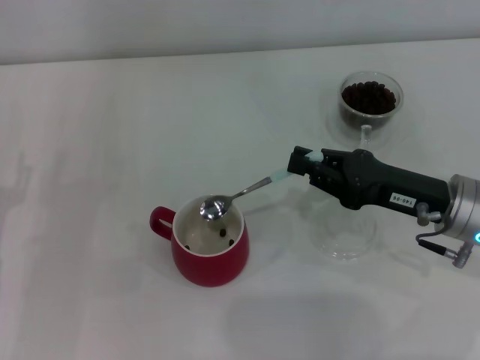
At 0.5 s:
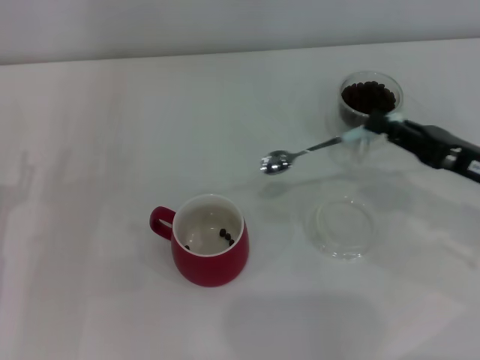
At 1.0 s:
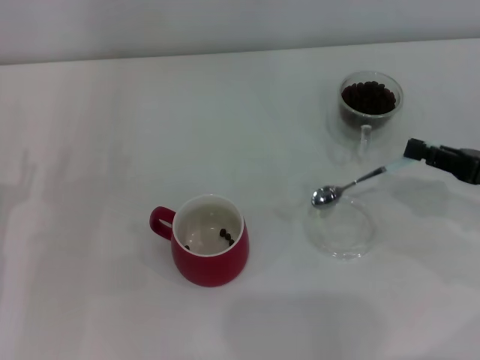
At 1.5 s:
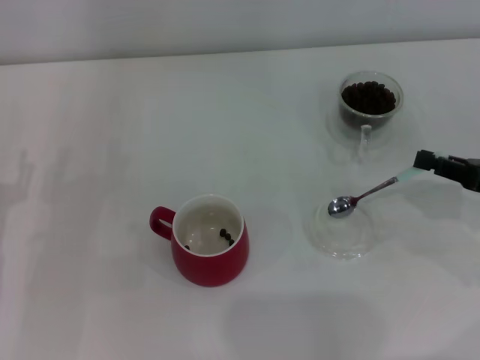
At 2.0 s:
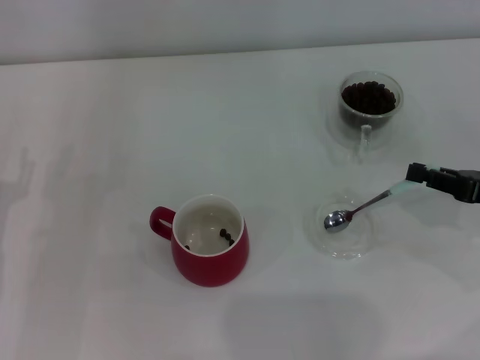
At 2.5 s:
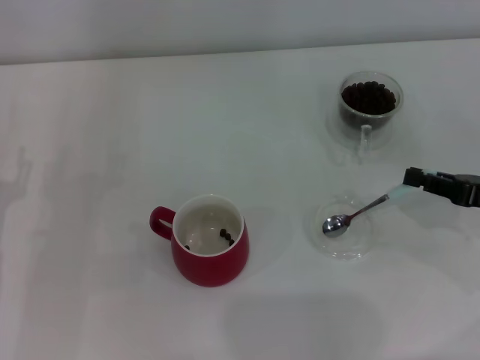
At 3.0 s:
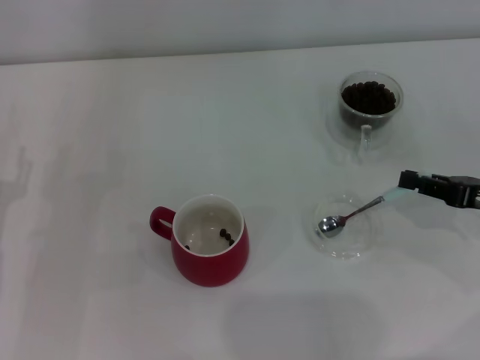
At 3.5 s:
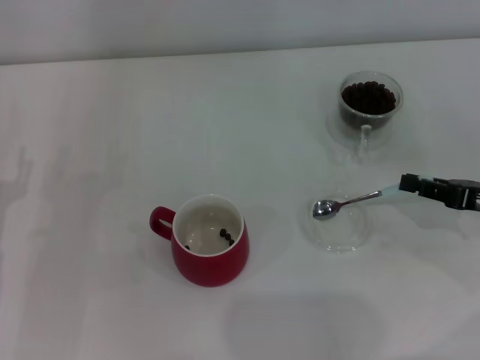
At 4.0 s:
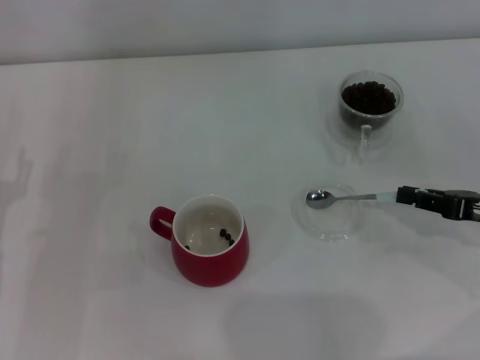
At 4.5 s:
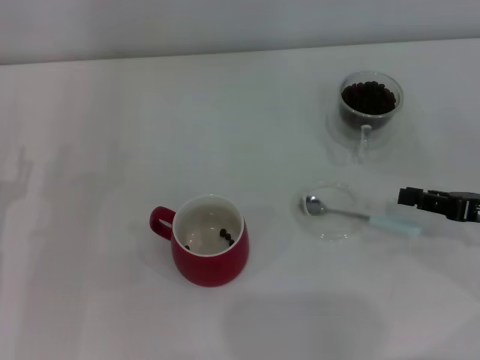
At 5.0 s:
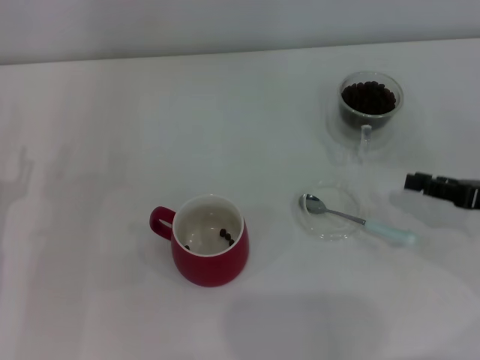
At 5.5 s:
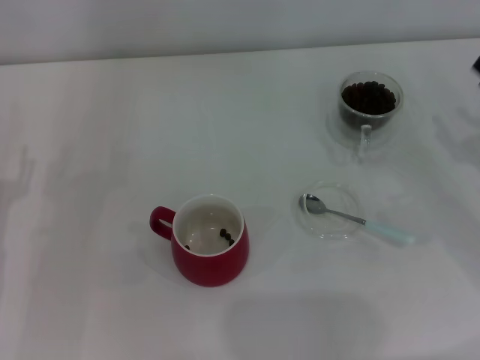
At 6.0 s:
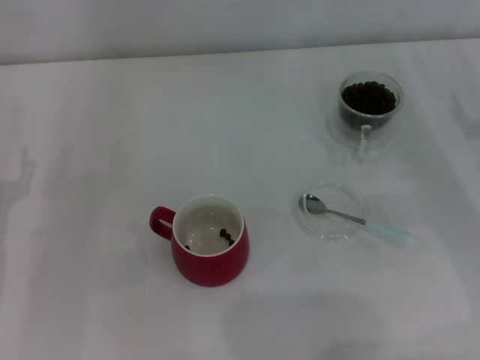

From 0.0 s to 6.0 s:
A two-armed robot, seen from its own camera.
Task of the whole recording: Use a blue spoon to take out the coffee beans from the glass and pour them into the red cup.
Step, from 0.5 s to 4.5 s: Place the spoon back in its original place with the right gripper.
From 0.0 s to 2.0 s: The right gripper moves to the right, roughly 10 cm.
From 2.0 s to 4.0 s: The grippers make only small movements.
From 4.0 s to 6.0 s: The right gripper opens up.

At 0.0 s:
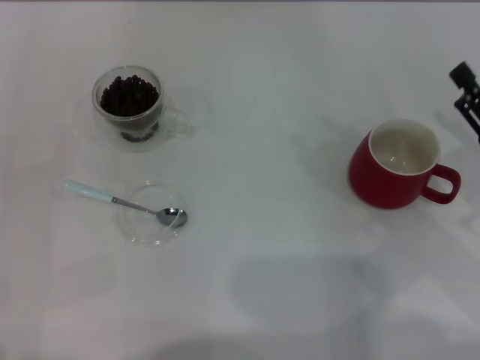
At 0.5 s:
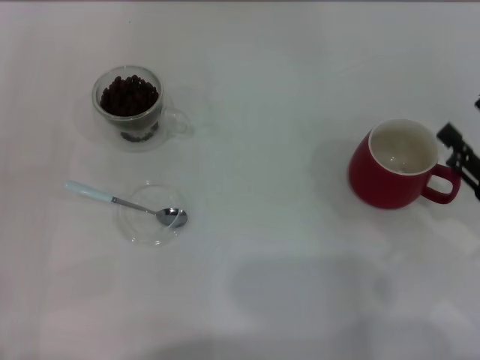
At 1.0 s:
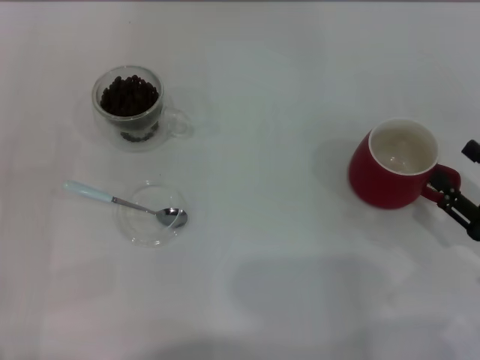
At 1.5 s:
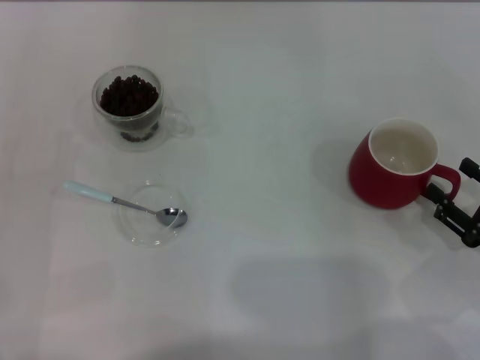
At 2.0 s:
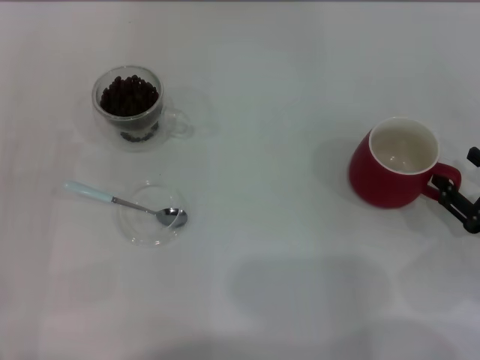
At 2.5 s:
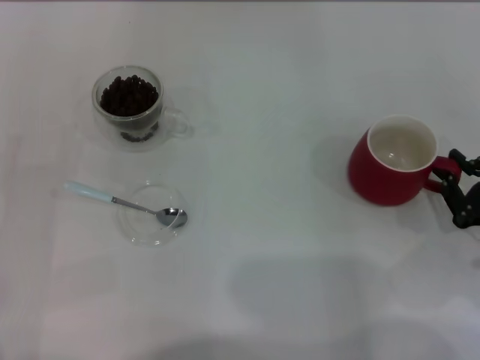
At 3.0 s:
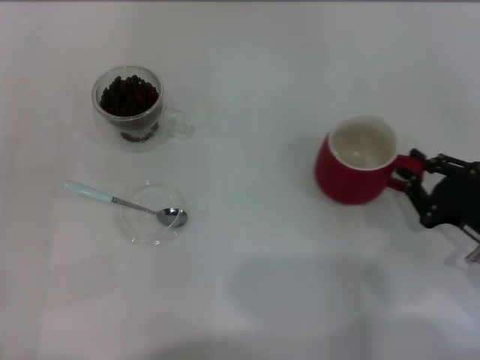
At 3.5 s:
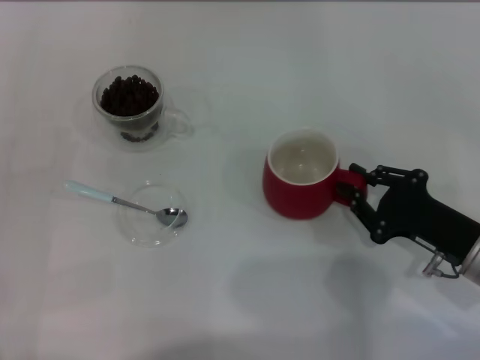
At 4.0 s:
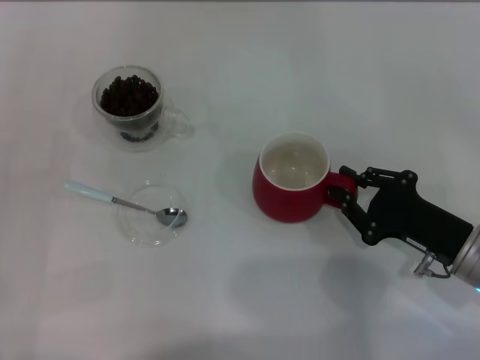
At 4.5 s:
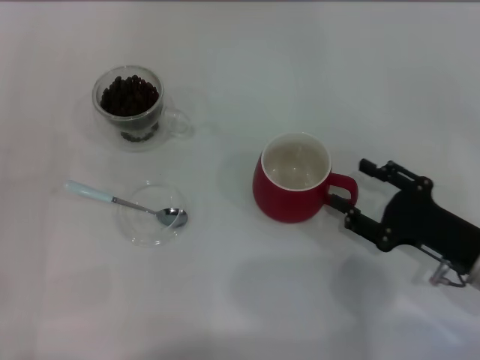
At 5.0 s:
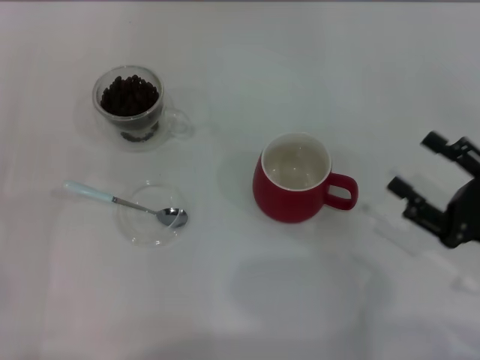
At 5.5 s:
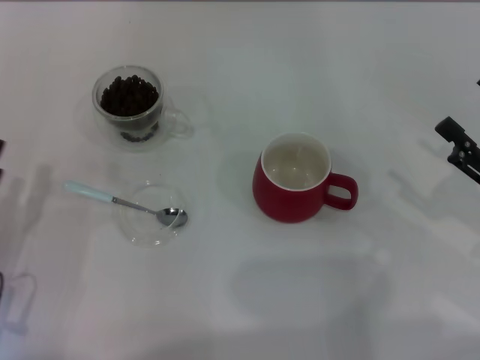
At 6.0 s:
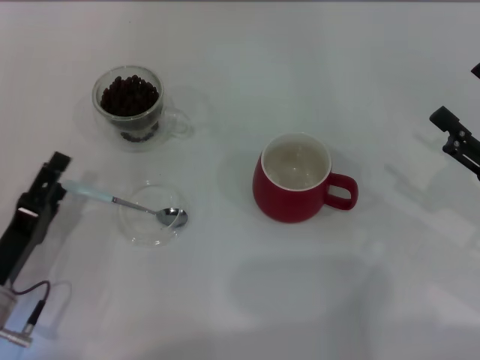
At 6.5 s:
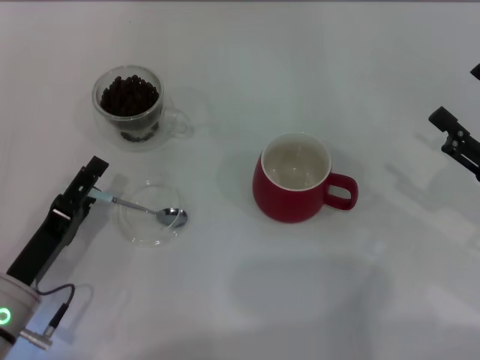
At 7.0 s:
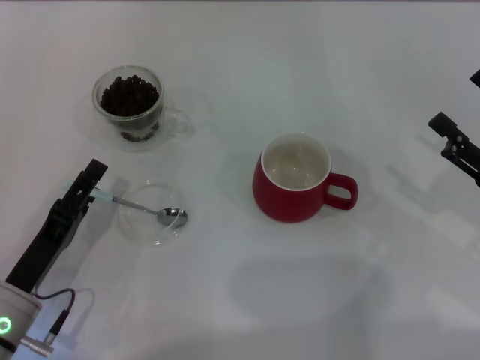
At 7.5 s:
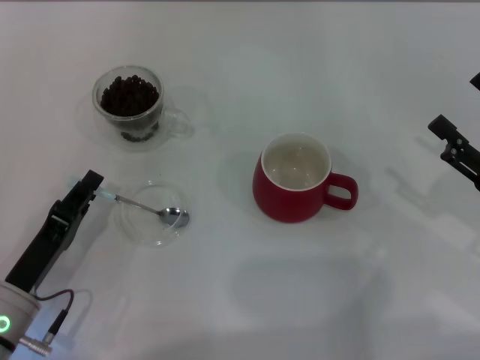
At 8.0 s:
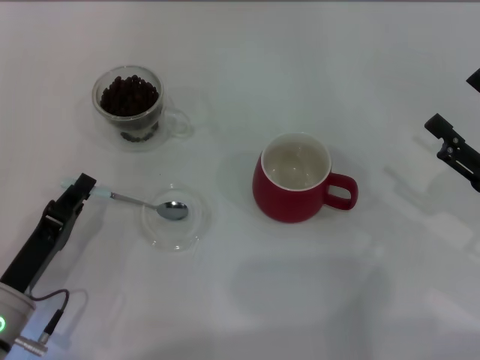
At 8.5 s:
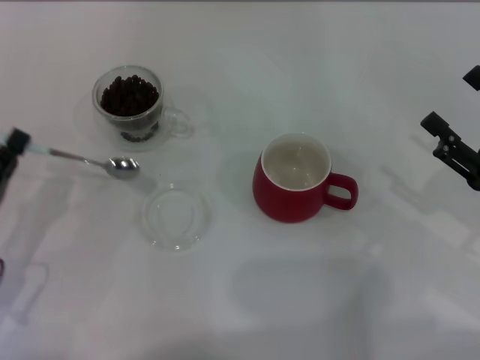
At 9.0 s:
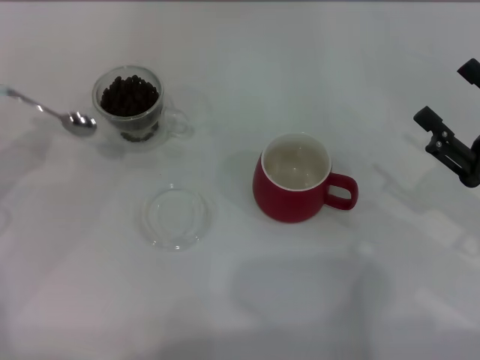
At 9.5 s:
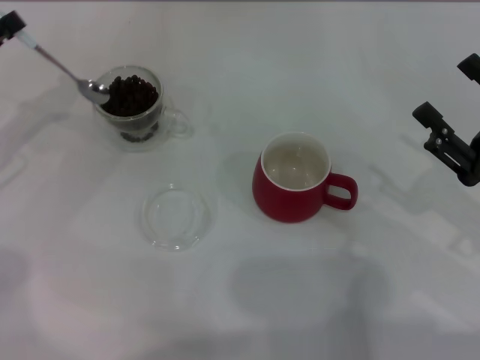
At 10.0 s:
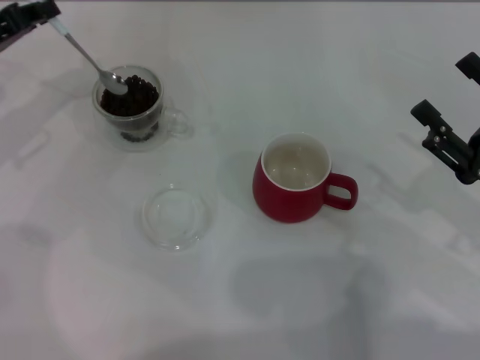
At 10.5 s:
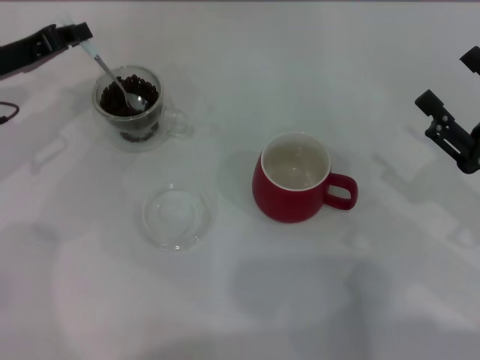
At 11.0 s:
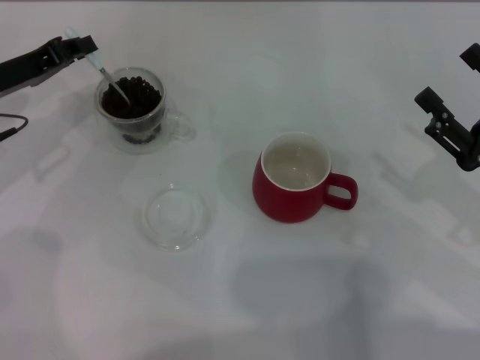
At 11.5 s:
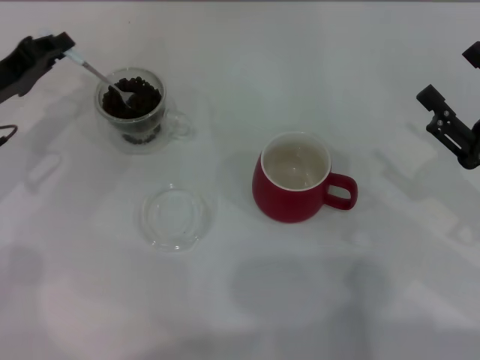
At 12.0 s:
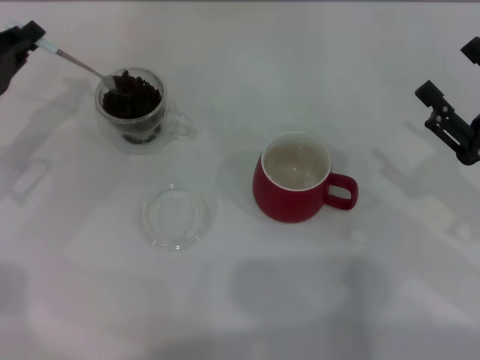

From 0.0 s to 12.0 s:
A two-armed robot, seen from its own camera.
Task of the whole recording: Use a blue spoon to take out the coffee beans from the glass and pour them into the red cup.
Step, from 0.0 s to 4.5 s: Move the cup to the center of view with the left gripper.
Step, from 5.0 s to 8.0 s: Pick up the spoon with the right gripper.
From 0.0 s to 2.0 s: The right gripper goes roughly 5 cm downward.
From 2.0 s to 4.0 s: The right gripper is displaced to the left by roughly 10 cm, and closes its fingers.
From 4.0 s to 6.0 s: The right gripper travels to the right and upward by approximately 10 cm, and opens its fingers. Meanwhile the left gripper shifts approximately 10 cm to the right and downward.
From 6.0 s to 8.0 s: The left gripper closes.
From 8.0 s to 10.0 s: The left gripper shifts some 25 cm forward and upward.
From 10.0 s to 12.0 s: The left gripper shifts approximately 5 cm backward.

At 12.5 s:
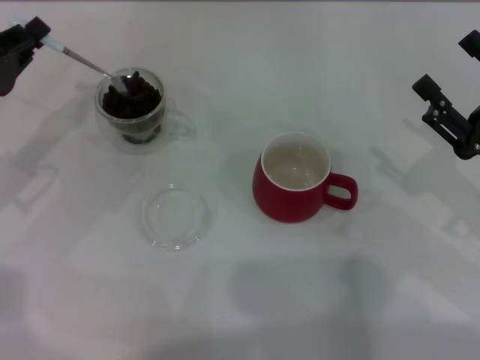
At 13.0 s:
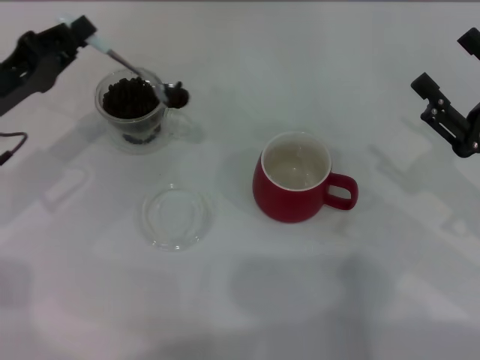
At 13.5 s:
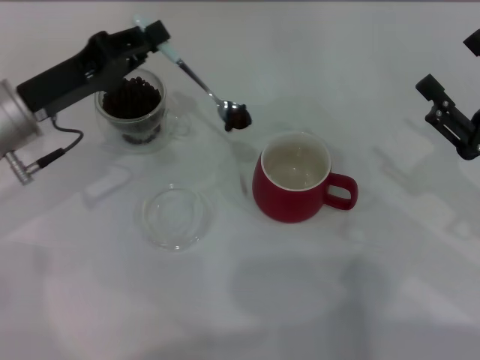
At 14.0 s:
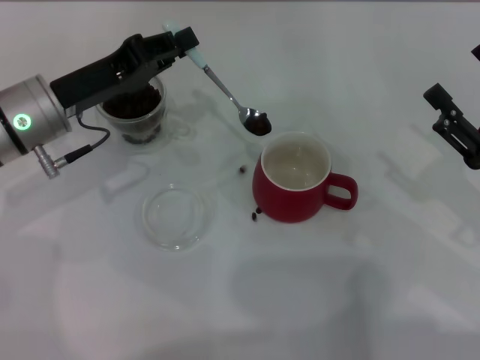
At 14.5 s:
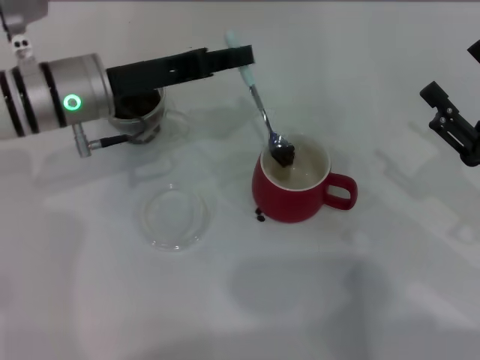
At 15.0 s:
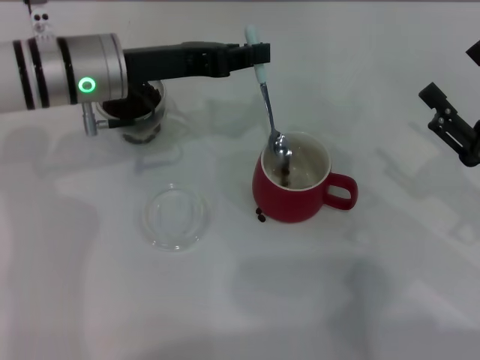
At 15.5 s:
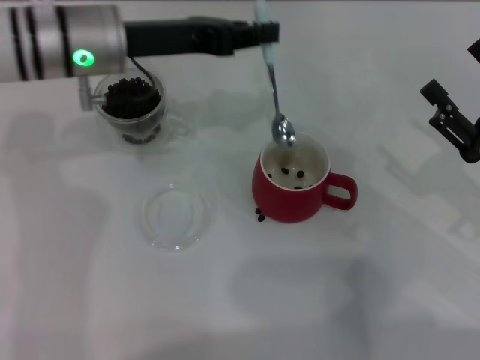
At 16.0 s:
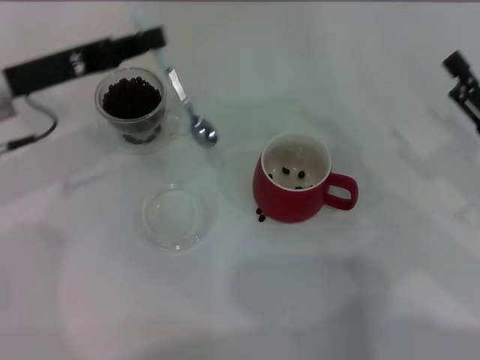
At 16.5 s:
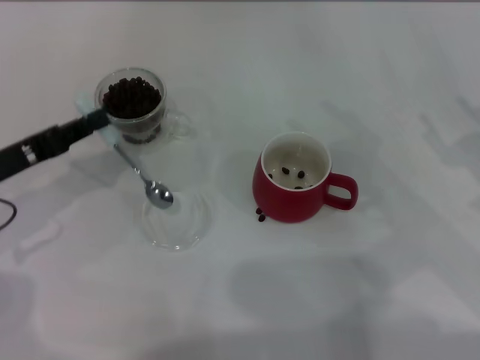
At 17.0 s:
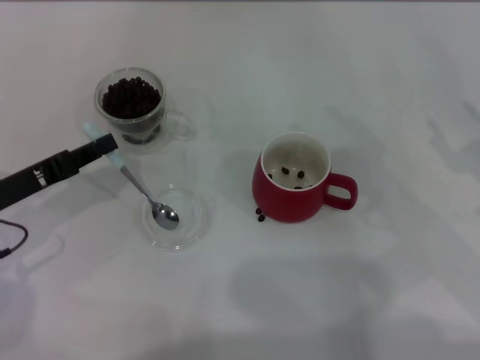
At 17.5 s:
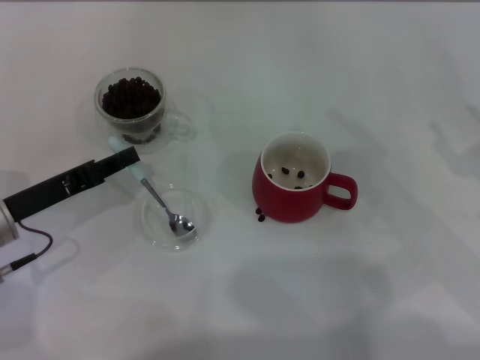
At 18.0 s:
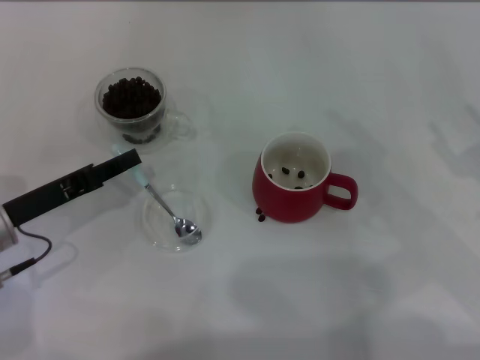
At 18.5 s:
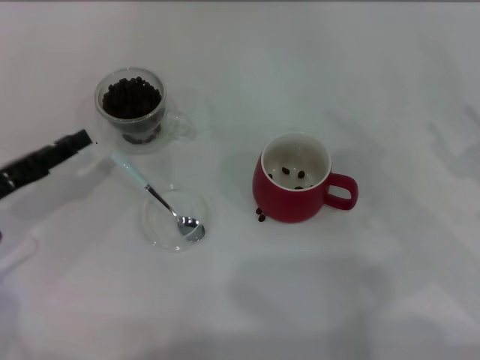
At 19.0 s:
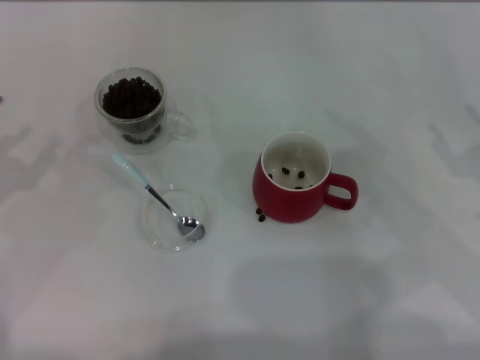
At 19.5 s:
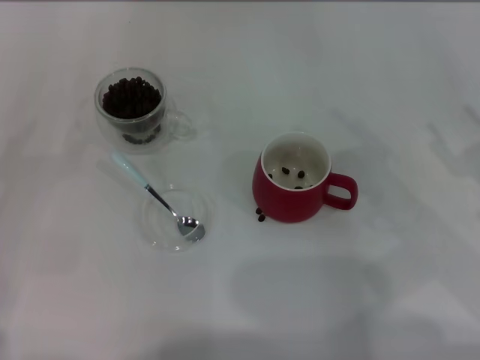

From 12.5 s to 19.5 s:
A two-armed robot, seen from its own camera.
Task of the whole recording: Use a blue spoon to take out the coffee beans from the glass and pour them into the red cup.
From 12.5 s to 14.5 s: The left gripper is displaced to the right by roughly 15 cm.
From 14.5 s to 16.0 s: The left gripper is displaced to the left by approximately 10 cm.
From 16.0 s to 17.5 s: The left gripper is displaced downward and backward by roughly 10 cm.
From 17.5 s to 19.5 s: The left gripper moves to the left, roughly 10 cm, and opens up.
